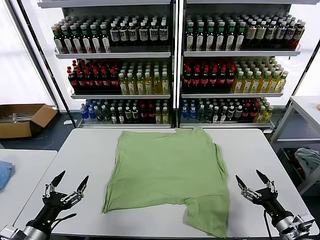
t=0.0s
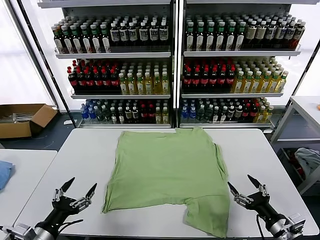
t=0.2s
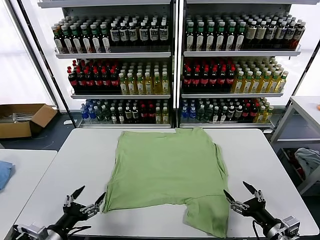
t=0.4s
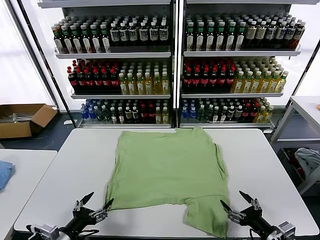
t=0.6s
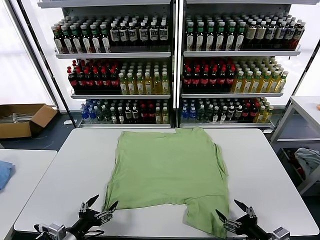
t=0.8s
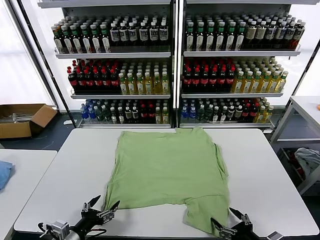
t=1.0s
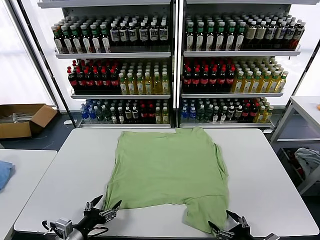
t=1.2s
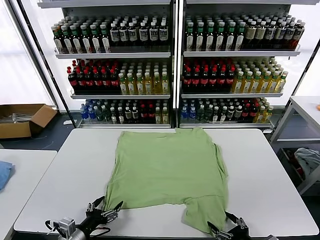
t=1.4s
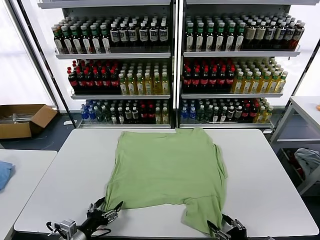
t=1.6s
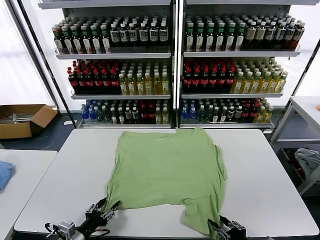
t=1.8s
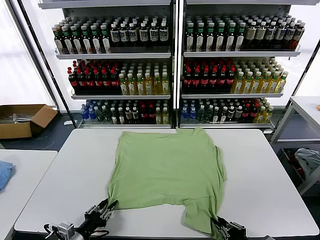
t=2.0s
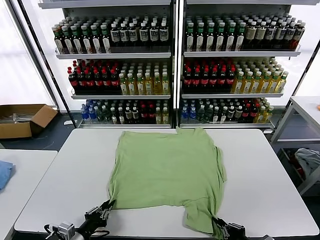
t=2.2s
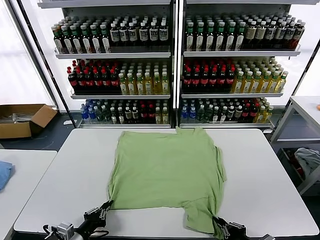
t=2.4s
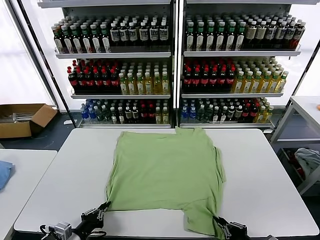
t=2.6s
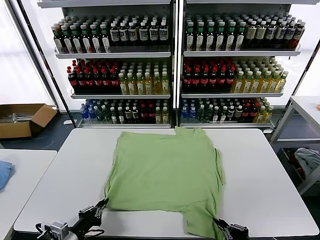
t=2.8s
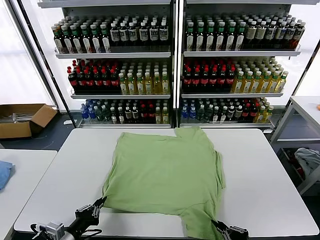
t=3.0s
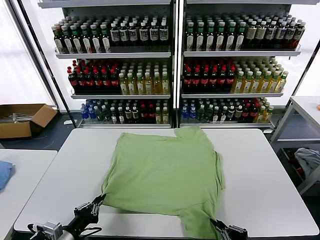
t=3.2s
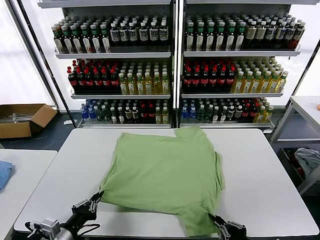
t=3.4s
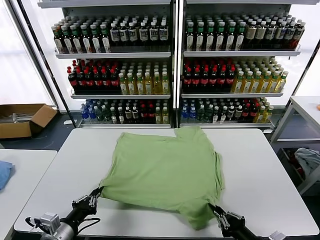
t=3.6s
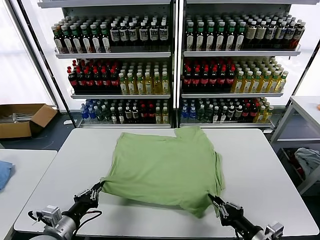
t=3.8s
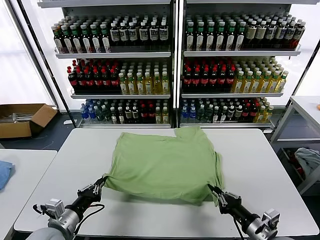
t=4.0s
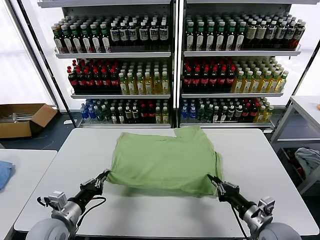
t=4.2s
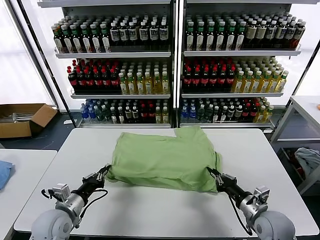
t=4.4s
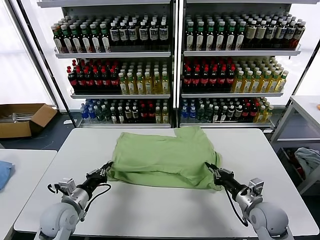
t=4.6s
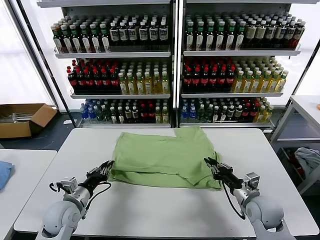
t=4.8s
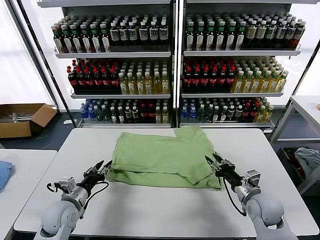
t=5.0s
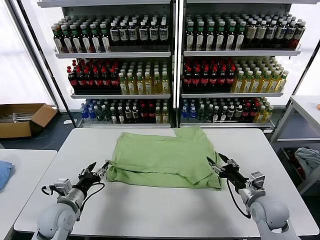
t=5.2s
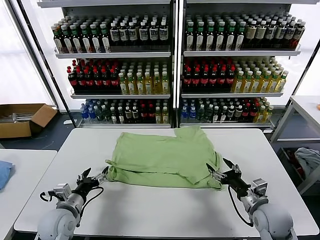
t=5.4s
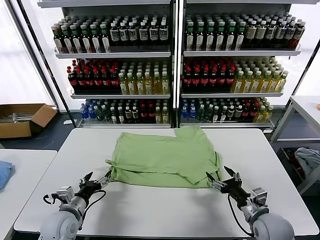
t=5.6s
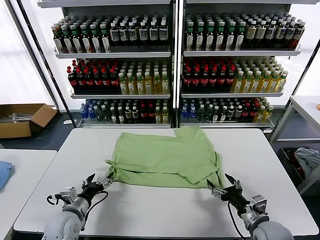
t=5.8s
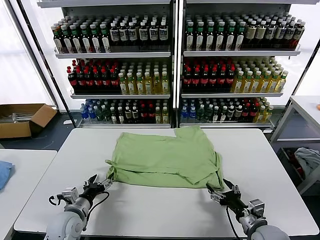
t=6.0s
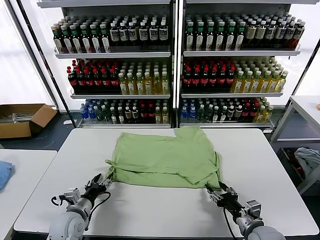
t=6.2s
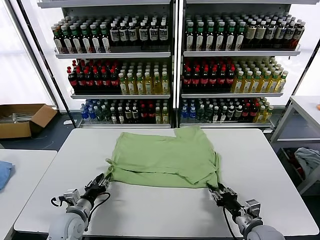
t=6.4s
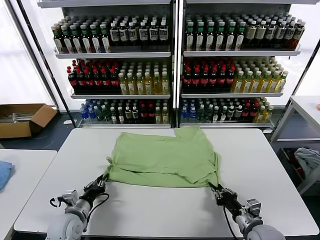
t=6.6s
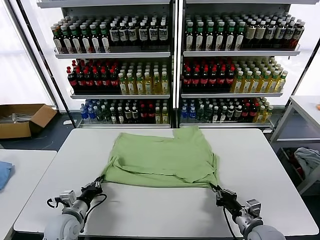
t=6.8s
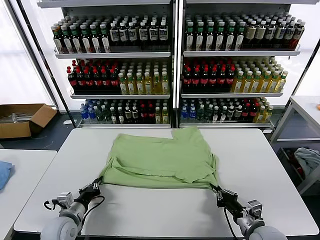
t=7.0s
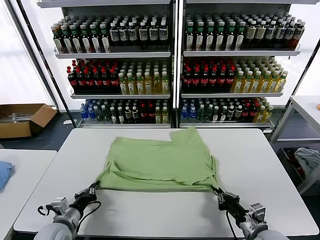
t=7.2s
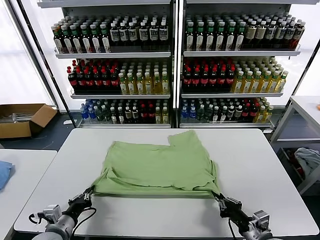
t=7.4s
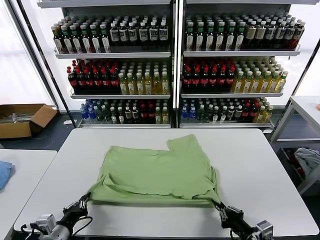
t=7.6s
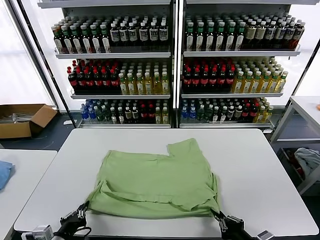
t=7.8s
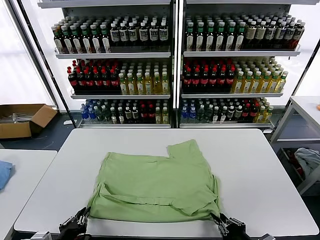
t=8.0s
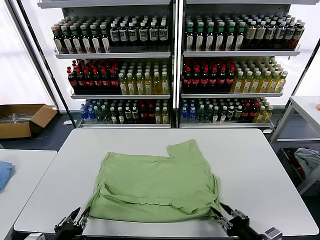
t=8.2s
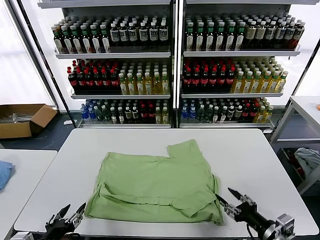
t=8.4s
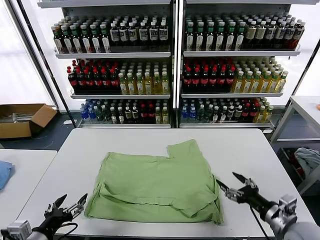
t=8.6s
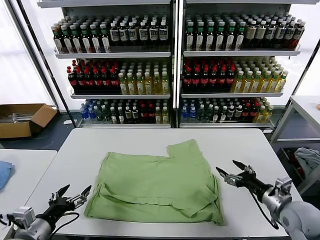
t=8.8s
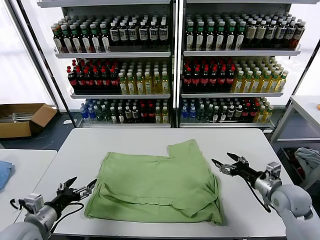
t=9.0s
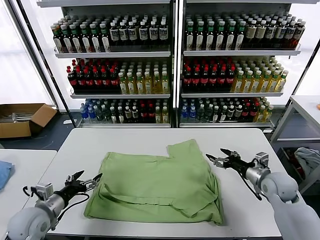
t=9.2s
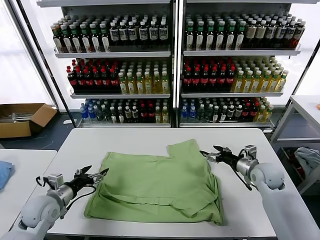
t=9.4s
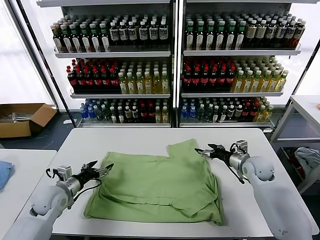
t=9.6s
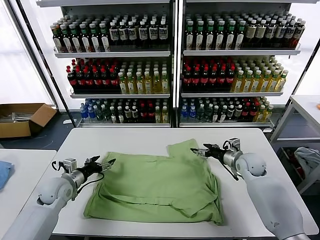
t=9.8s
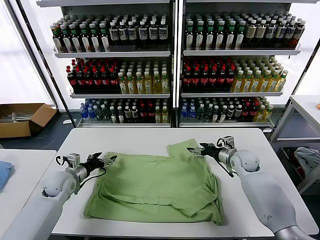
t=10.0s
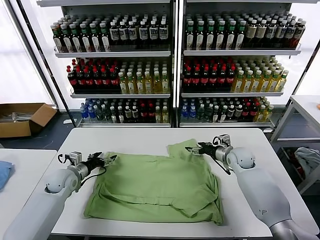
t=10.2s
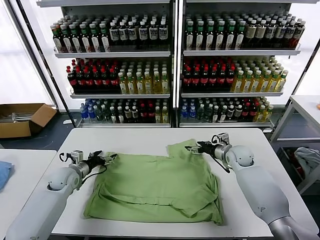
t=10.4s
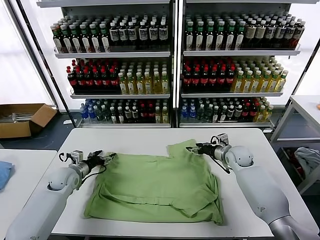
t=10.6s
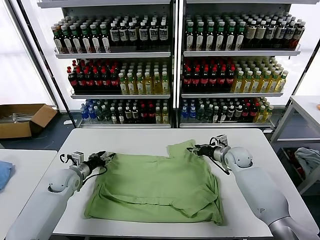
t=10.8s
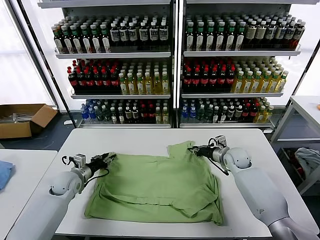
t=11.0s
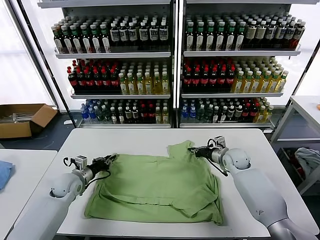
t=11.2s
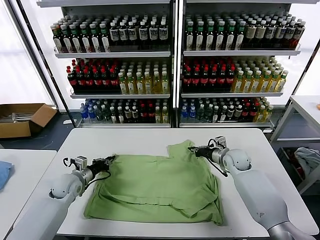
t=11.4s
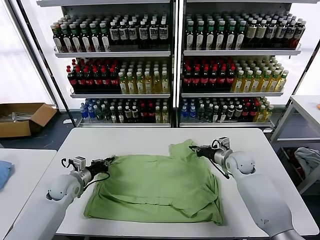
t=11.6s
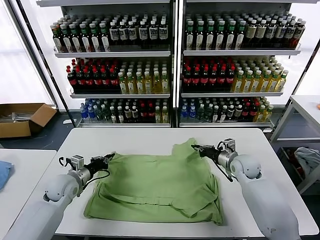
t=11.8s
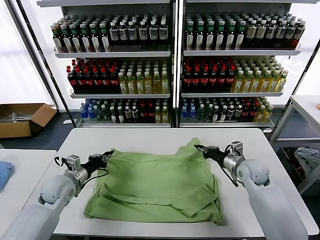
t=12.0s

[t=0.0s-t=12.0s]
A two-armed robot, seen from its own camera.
Task of the whole recording: fold and organize the clothes.
Step, t=0.0s to t=2.2s: use both grippers simultaneously to clamp the lower edge of the clothing fabric.
Step, t=2.6s to t=5.2s: use both grippers to drag the lower edge of the fabric forward and fold it over the upper edge.
Step, t=5.4s to t=8.2s: Drag the clothes downward with both gripper.
Step, t=8.4s to t=11.2s: use both grippers simultaneously to clamp the upper edge of the clothing fabric.
t=1.6s to t=3.0s: The left gripper closes, while the right gripper closes its fingers.
t=3.0s to t=4.4s: The right gripper is displaced forward by approximately 20 cm, while the left gripper goes roughly 10 cm forward.
t=4.4s to t=6.0s: The right gripper moves backward, approximately 5 cm, and opens; the left gripper shifts by approximately 5 cm, and opens up.
t=6.0s to t=7.6s: The two grippers go roughly 10 cm backward. The left gripper closes up, while the right gripper closes its fingers.
t=7.6s to t=9.0s: The right gripper goes some 20 cm forward, and opens its fingers; the left gripper goes roughly 5 cm upward, and opens its fingers.
t=9.0s to t=10.4s: The left gripper is displaced forward by approximately 20 cm, while the right gripper shifts roughly 20 cm forward and to the left.
t=10.4s to t=12.0s: The right gripper travels backward by roughly 10 cm, and closes its fingers, while the left gripper moves backward, some 5 cm, and closes.

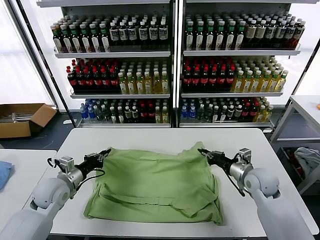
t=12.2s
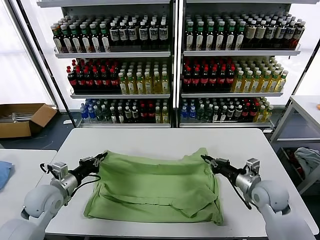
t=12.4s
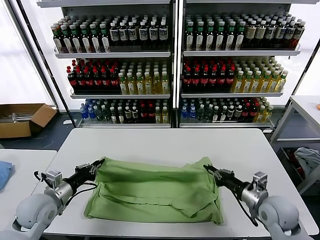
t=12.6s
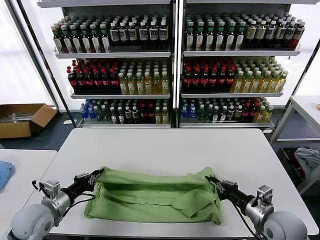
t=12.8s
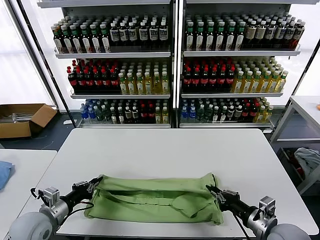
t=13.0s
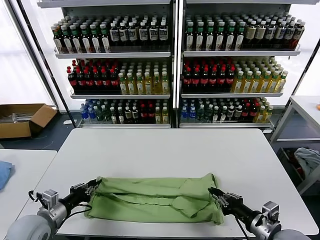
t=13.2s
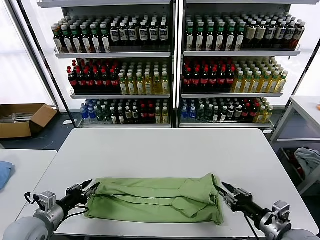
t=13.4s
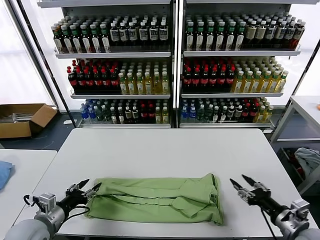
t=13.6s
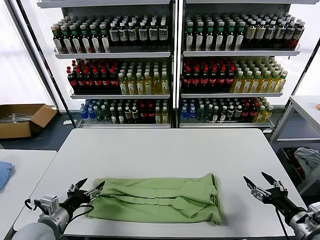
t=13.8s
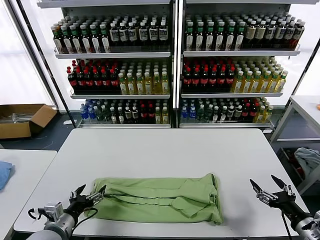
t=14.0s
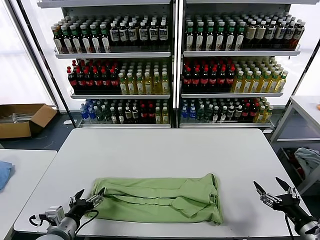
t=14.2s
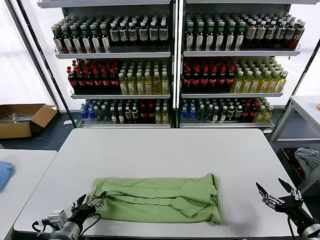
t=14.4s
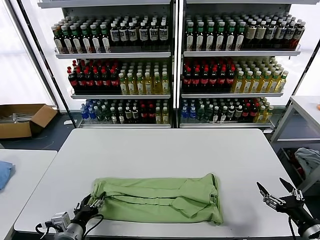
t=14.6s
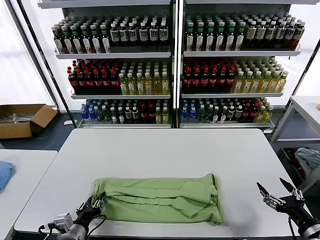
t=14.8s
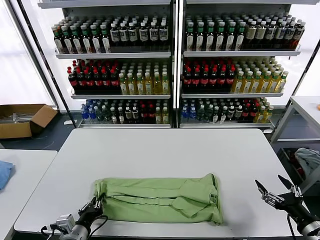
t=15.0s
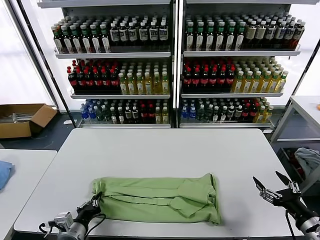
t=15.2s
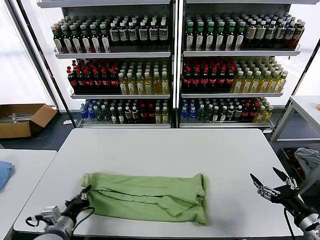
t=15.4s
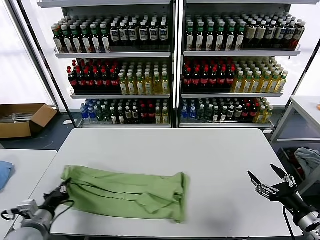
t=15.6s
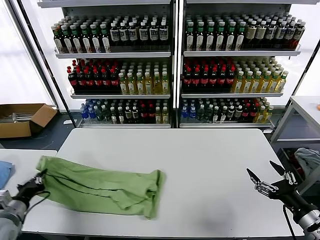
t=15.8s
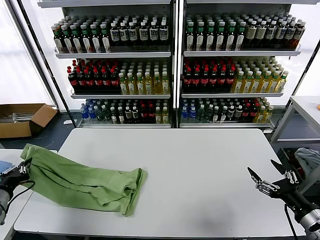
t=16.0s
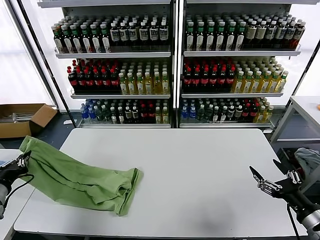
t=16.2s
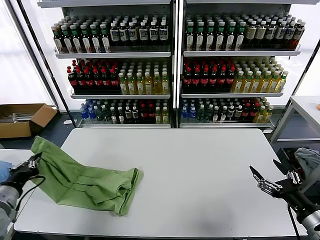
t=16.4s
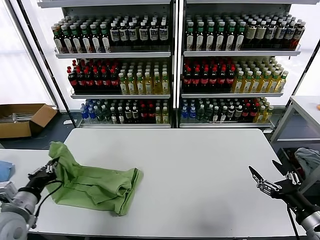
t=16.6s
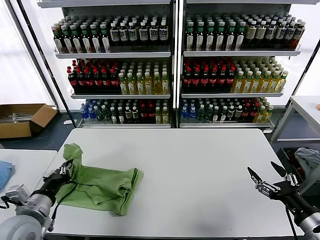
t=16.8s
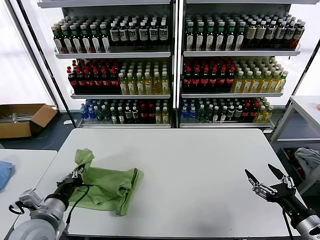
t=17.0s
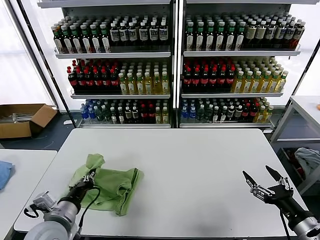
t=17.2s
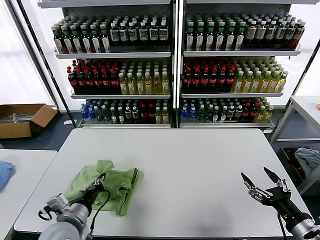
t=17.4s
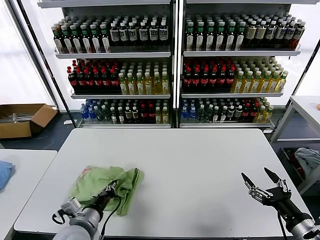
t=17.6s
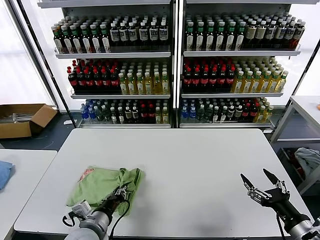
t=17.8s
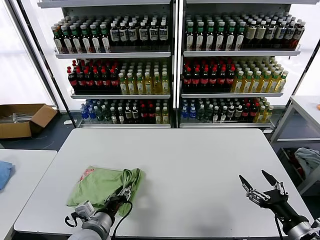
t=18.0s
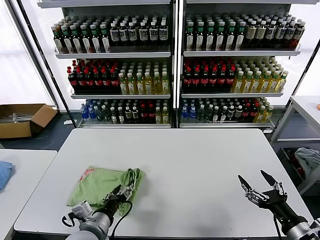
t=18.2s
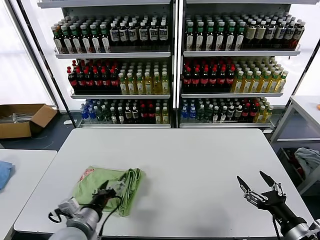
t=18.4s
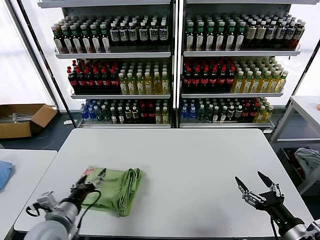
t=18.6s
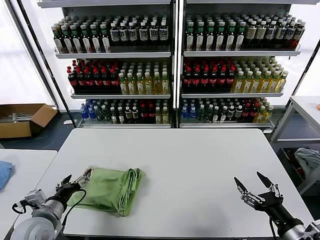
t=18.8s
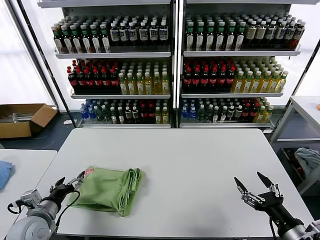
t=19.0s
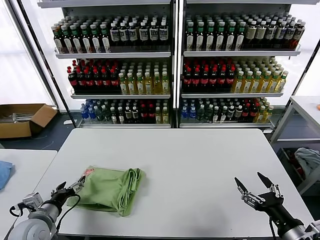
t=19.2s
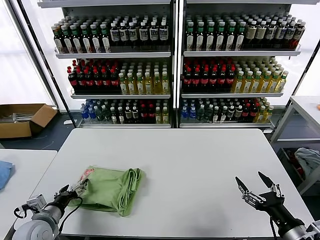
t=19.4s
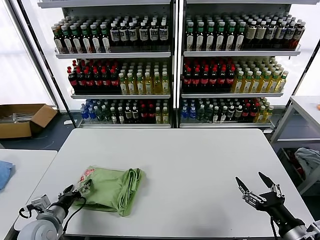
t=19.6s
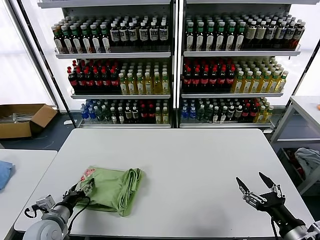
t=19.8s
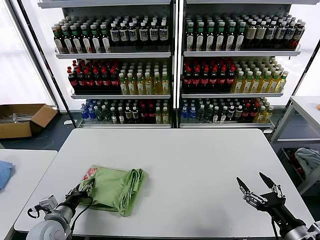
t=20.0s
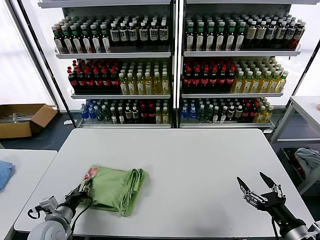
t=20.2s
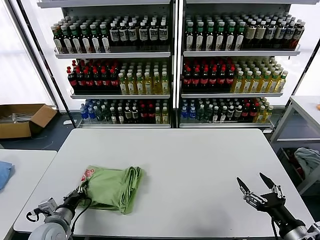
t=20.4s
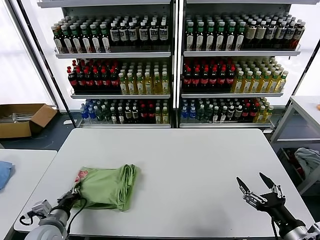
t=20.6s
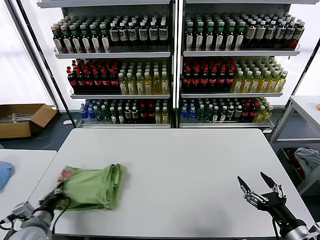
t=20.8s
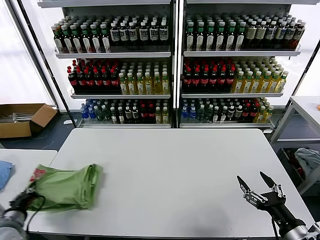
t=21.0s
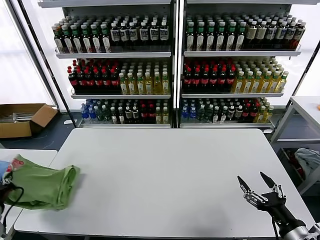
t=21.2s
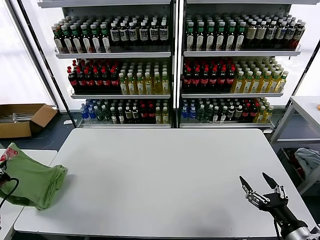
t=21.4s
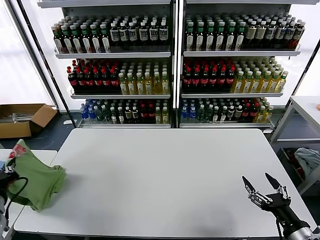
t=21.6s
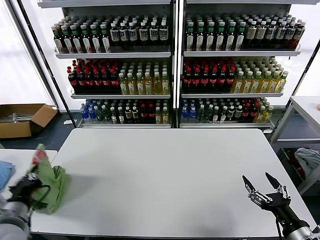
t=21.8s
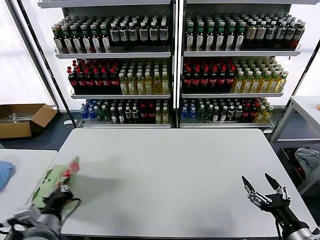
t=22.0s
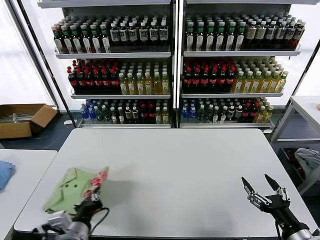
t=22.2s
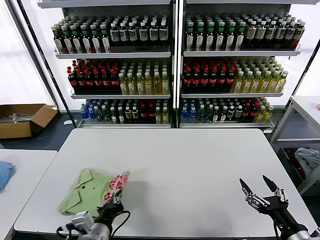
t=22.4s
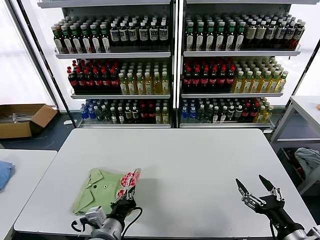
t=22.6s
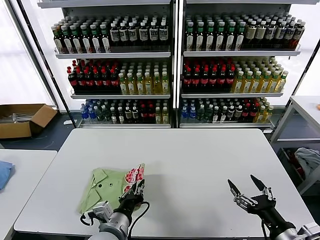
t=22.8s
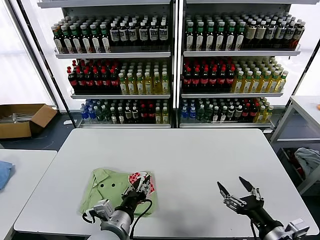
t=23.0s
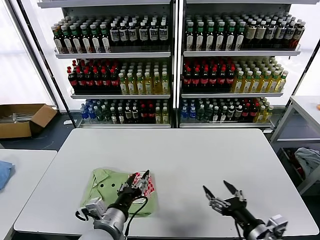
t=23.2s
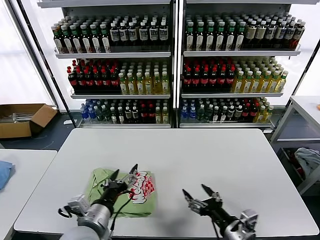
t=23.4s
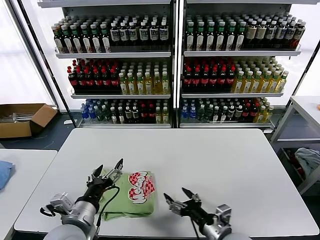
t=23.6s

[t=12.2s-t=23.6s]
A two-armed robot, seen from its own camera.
Task of the whole recording: fold and organize the clothes.
Step, t=12.2s to t=13.4s: use both grippers to drag the upper edge of the fabric backward and fold it over the lower edge.
Step, t=13.6s to t=15.0s: use the left gripper to clamp the left edge of the fabric.
Step, t=15.4s to t=18.2s: use the left gripper to drag the left edge of the fabric to the left and folds it over the right edge.
Step, t=18.4s to t=23.0s: Flip the folded clothes over with left gripper.
t=12.2s to t=13.6s: The right gripper moves backward and to the right, some 20 cm, and opens. The left gripper goes approximately 10 cm backward, and opens its fingers.
t=13.6s to t=15.0s: The left gripper shifts about 10 cm to the right and downward, and closes.
t=15.0s to t=16.4s: The right gripper changes place by approximately 5 cm, while the left gripper is displaced to the left and upward by roughly 20 cm.
t=16.4s to t=17.8s: The left gripper is displaced to the right by some 25 cm.
t=17.8s to t=19.4s: The left gripper heads to the left, covering about 15 cm, and opens.
t=19.4s to t=20.8s: The left gripper closes.
t=20.8s to t=22.2s: The left gripper moves to the right, upward and backward, about 15 cm.
t=22.2s to t=23.6s: The left gripper reaches some 10 cm to the right, then returns, and opens its fingers; the right gripper moves to the left and forward, some 15 cm.
